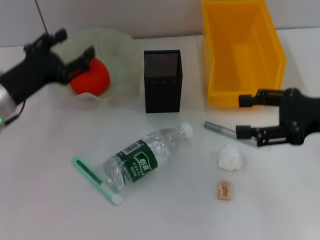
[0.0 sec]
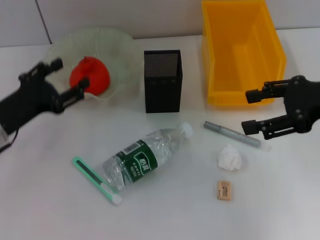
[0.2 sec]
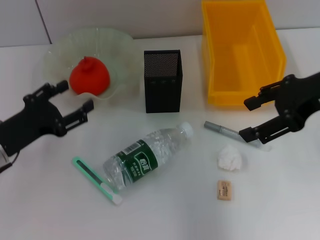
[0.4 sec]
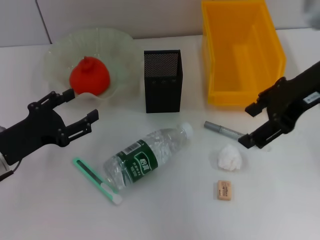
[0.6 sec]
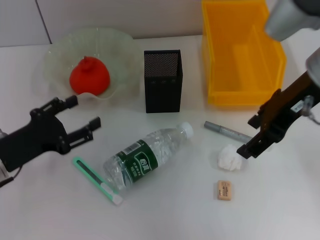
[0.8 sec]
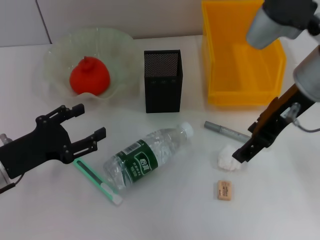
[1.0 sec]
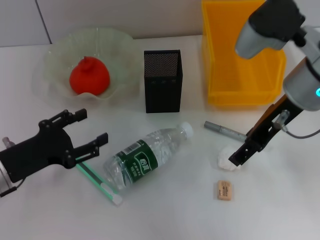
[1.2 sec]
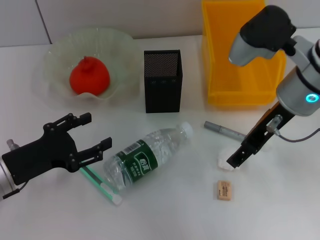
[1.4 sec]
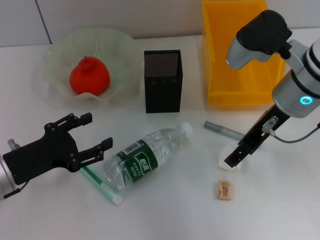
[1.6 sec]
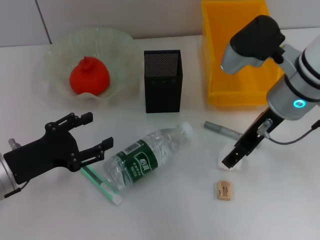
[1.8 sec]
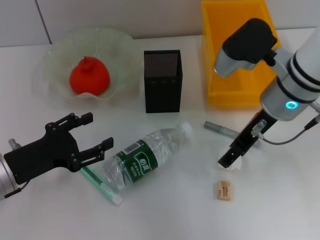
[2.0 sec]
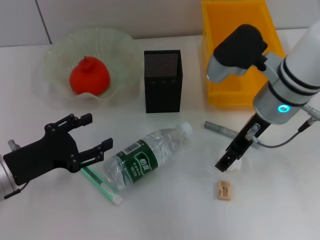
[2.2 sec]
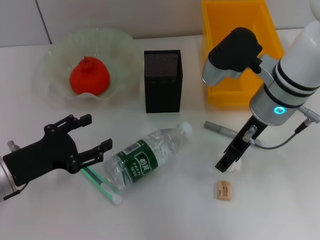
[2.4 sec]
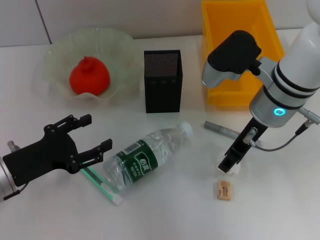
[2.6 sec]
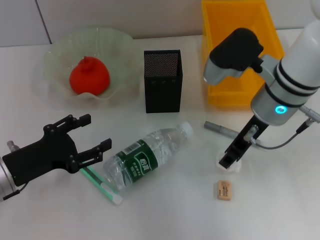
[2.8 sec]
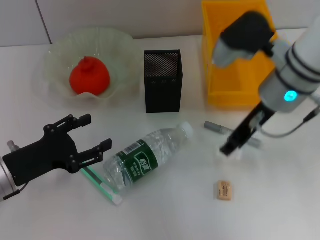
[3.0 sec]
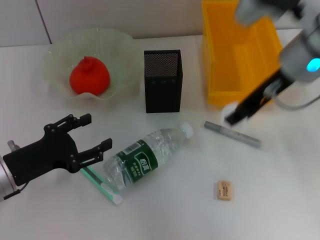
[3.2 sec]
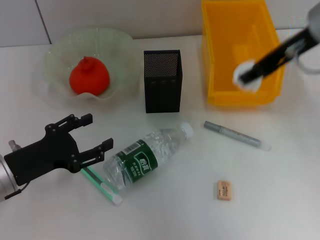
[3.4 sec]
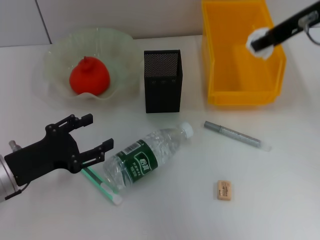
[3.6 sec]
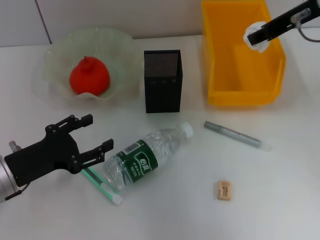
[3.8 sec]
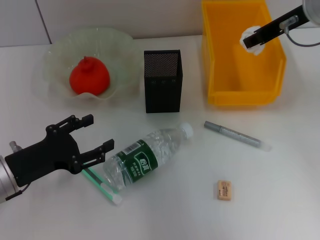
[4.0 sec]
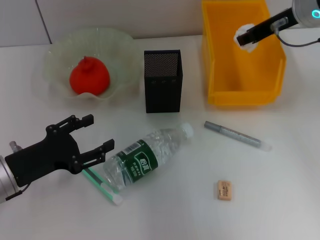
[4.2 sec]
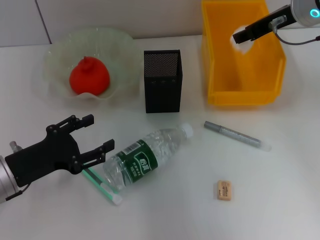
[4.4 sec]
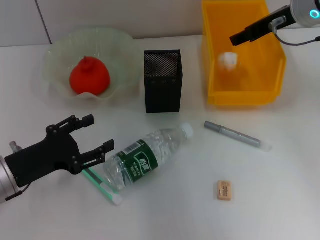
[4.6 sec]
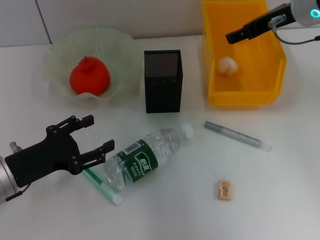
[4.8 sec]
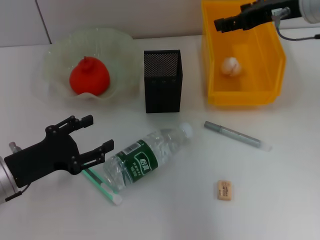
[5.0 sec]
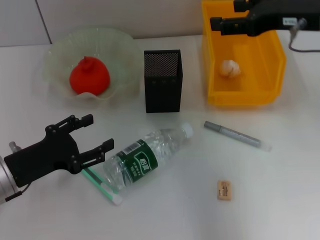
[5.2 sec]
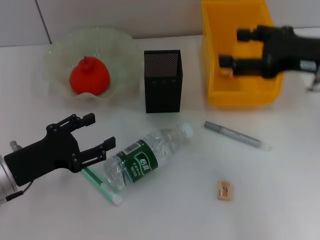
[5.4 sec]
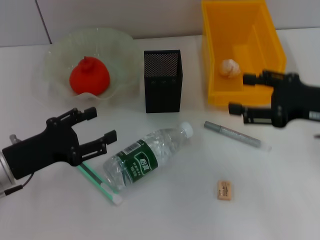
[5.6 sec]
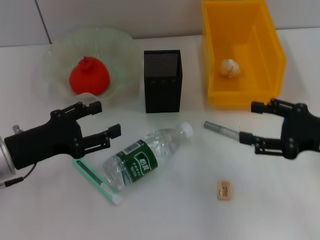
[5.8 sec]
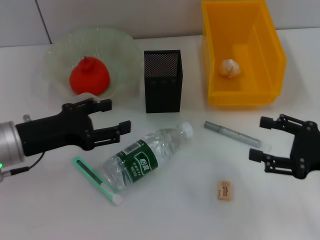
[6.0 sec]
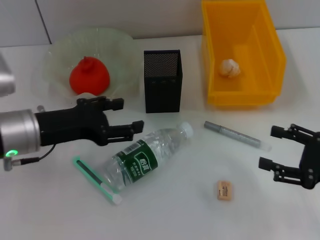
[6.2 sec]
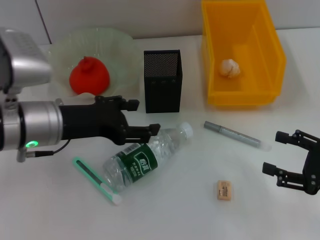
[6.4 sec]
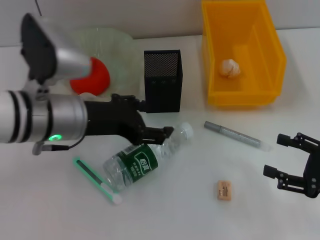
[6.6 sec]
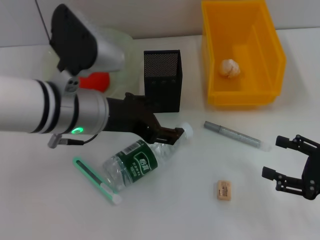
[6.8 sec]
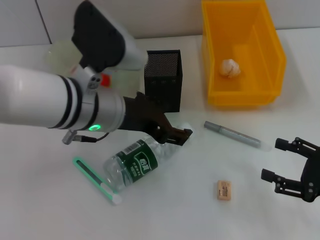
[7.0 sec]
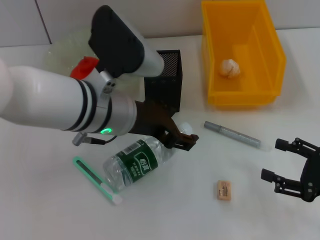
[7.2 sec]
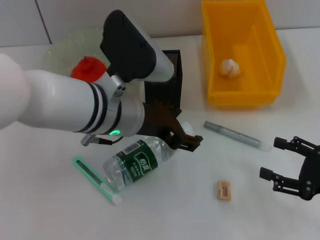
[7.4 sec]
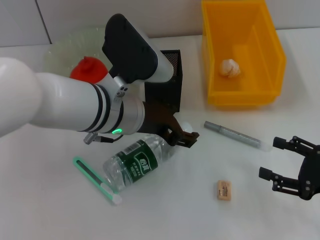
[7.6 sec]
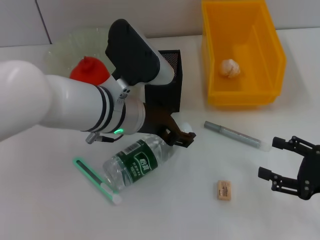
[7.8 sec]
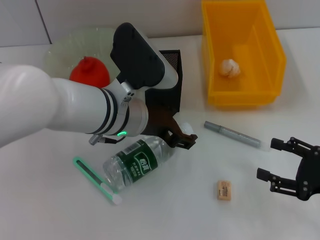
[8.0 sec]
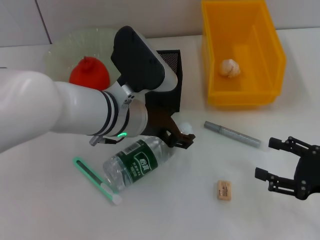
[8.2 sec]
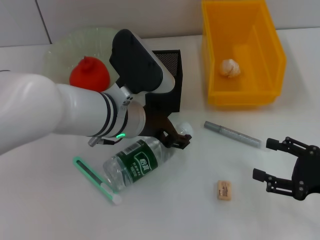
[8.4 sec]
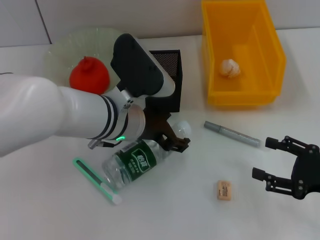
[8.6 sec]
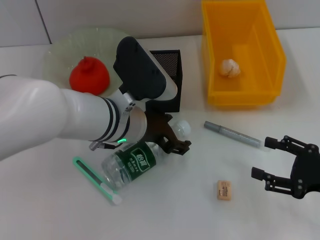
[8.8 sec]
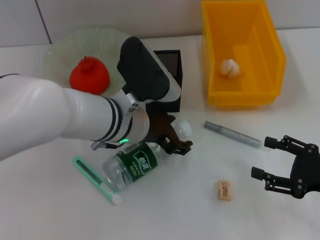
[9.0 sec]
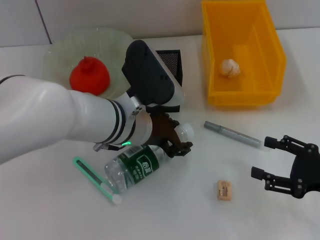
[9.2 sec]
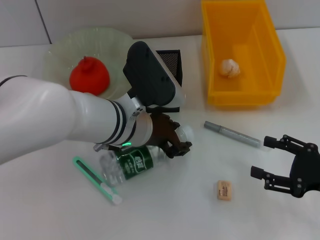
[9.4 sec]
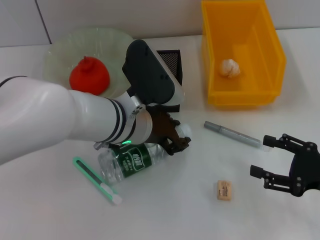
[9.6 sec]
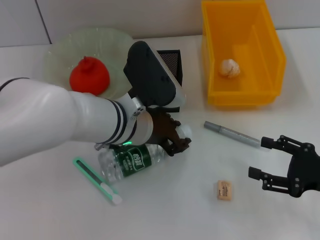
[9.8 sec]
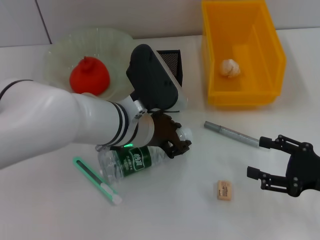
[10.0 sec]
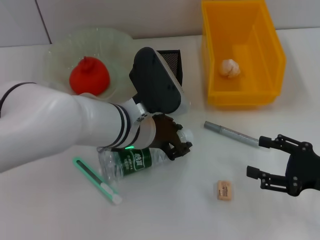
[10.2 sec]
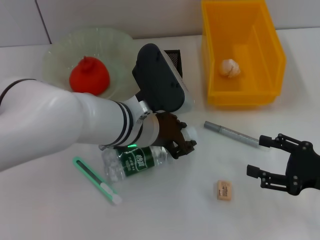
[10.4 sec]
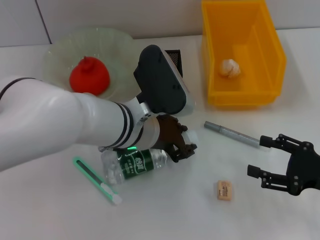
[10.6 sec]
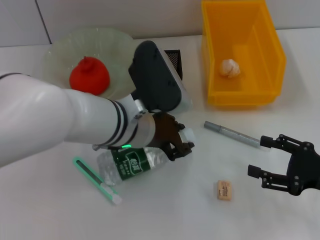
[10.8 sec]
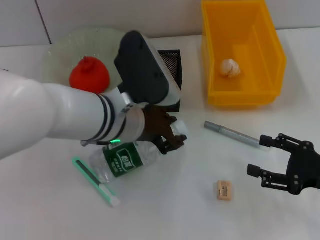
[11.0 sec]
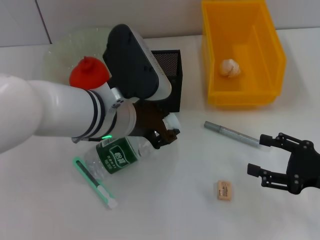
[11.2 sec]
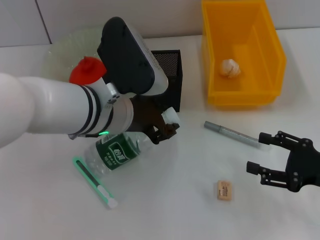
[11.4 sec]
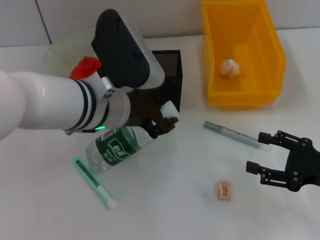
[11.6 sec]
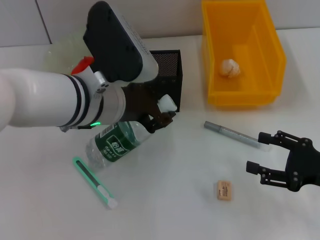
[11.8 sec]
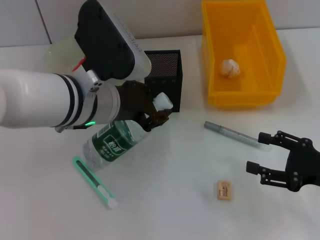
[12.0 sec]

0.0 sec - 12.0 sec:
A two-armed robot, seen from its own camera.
Step, 0.0 sec - 2.6 sec: Grab the paper ball with the right hand.
Step, 2.8 sec - 5.0 sec: Place the paper ball into the trash can with the right hand.
Step, 5.2 sec - 10.4 sec: Grab the water bottle with the left hand.
0.0 sec - 1.6 sec: The left gripper goes about 10 cm backward. Meanwhile the right gripper heads to the left and forward, covering some 15 cm.
1.6 sec - 3.0 sec: The right gripper closes its fingers.
3.0 sec - 4.4 sec: The right gripper is displaced forward and to the right by about 10 cm.
4.4 sec - 6.0 sec: The right gripper is displaced backward, downward and to the right by roughly 25 cm, and opens up. The left gripper moves upward, roughly 5 cm.
6.0 sec - 7.6 sec: The right gripper shifts by some 5 cm, while the left gripper moves to the right, about 15 cm.
7.6 sec - 9.0 sec: There are only small adjustments of the grippers.
9.0 sec - 10.4 sec: The left gripper closes.
10.4 sec - 12.0 sec: The left gripper goes roughly 5 cm upward.

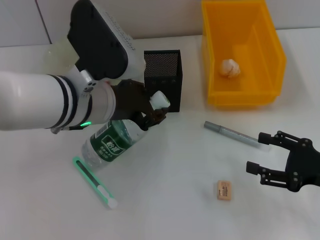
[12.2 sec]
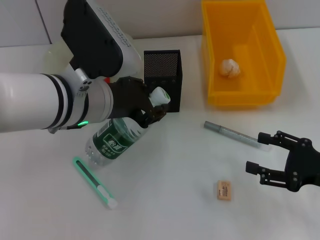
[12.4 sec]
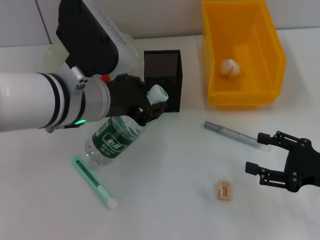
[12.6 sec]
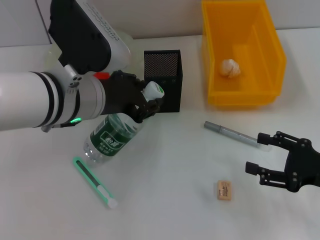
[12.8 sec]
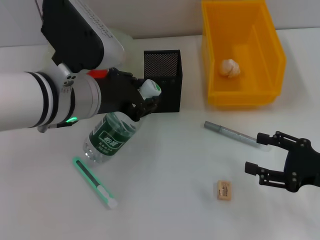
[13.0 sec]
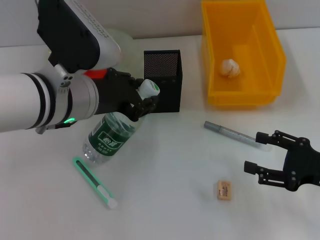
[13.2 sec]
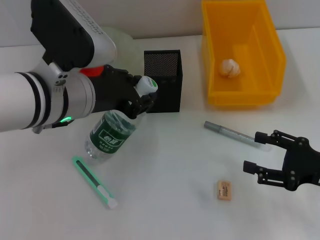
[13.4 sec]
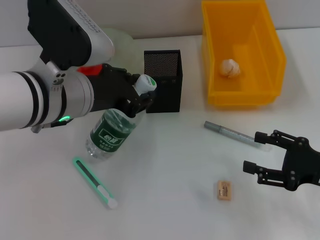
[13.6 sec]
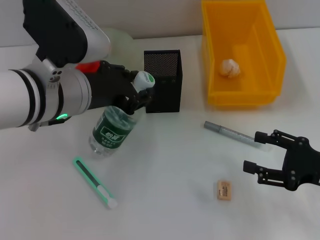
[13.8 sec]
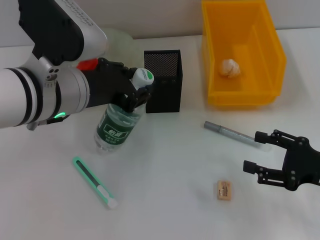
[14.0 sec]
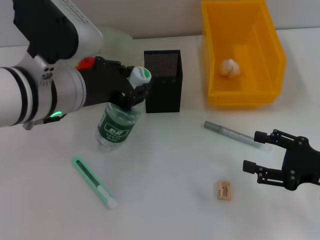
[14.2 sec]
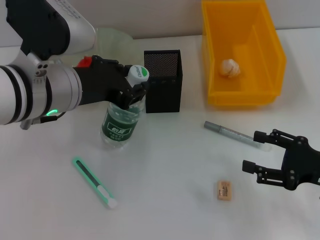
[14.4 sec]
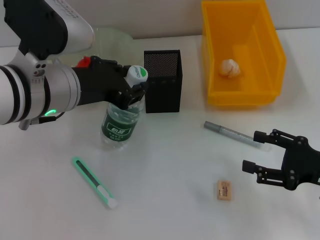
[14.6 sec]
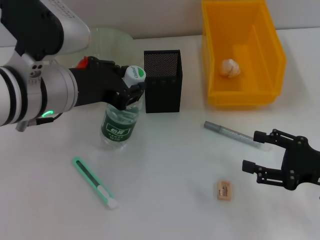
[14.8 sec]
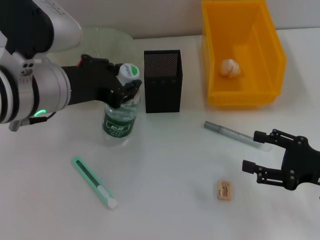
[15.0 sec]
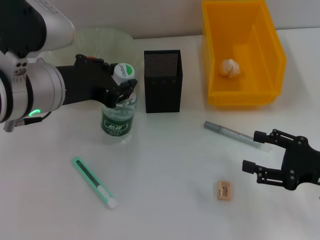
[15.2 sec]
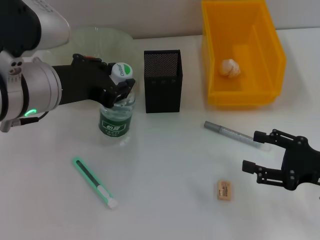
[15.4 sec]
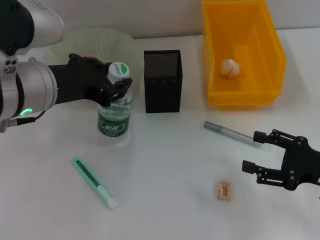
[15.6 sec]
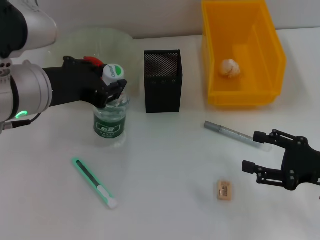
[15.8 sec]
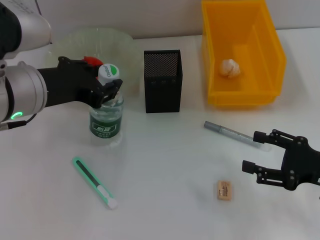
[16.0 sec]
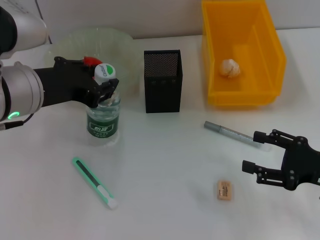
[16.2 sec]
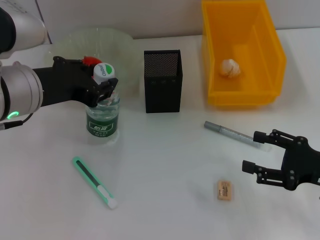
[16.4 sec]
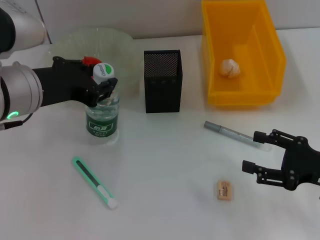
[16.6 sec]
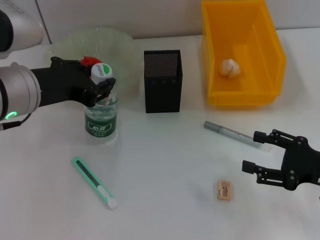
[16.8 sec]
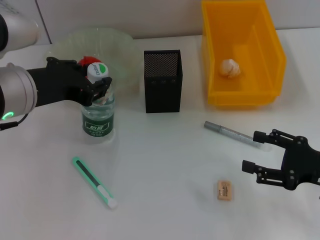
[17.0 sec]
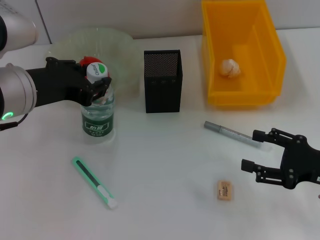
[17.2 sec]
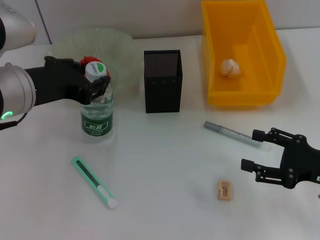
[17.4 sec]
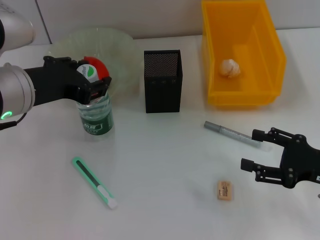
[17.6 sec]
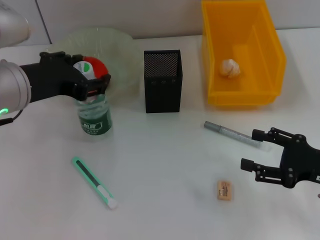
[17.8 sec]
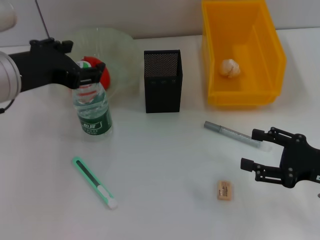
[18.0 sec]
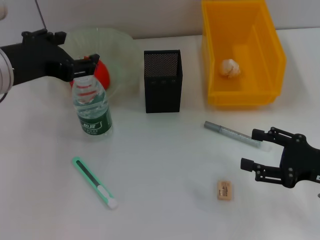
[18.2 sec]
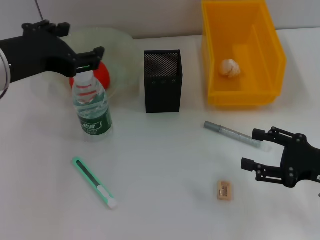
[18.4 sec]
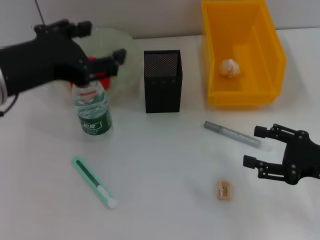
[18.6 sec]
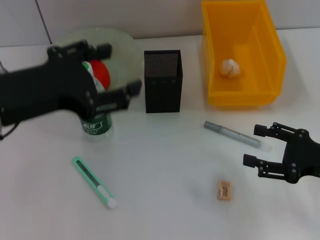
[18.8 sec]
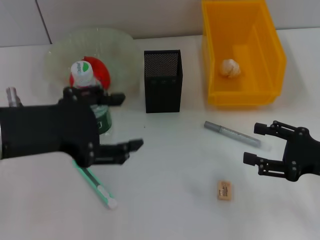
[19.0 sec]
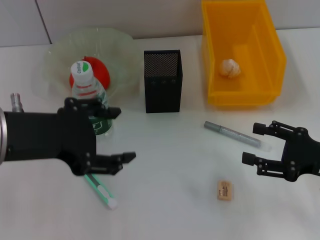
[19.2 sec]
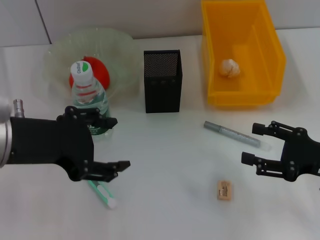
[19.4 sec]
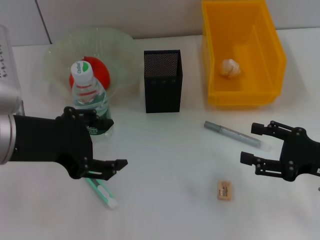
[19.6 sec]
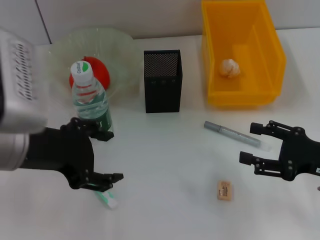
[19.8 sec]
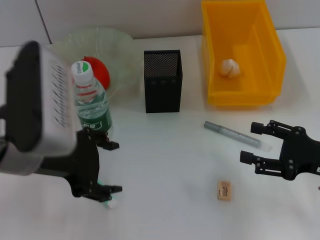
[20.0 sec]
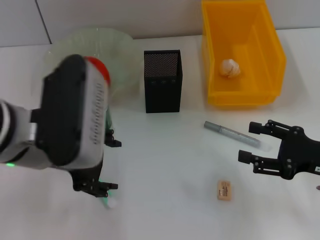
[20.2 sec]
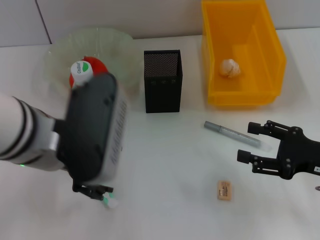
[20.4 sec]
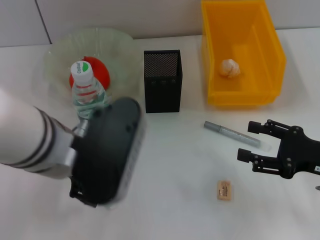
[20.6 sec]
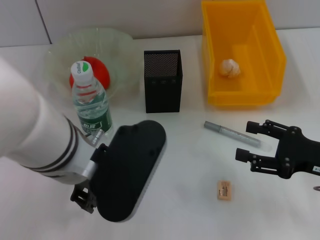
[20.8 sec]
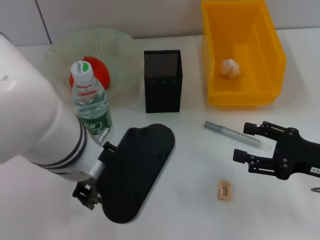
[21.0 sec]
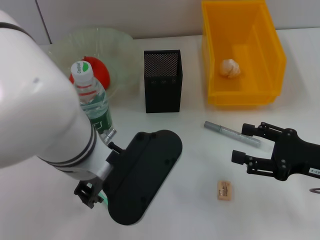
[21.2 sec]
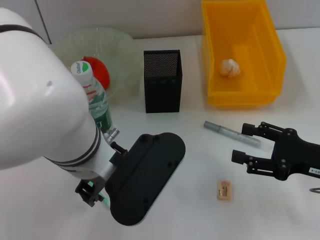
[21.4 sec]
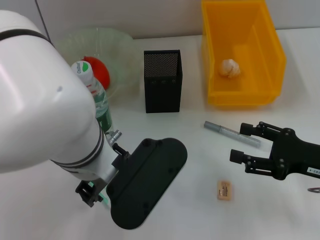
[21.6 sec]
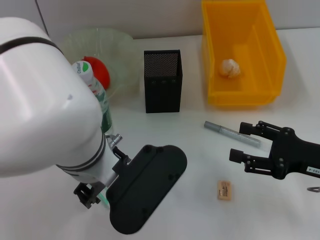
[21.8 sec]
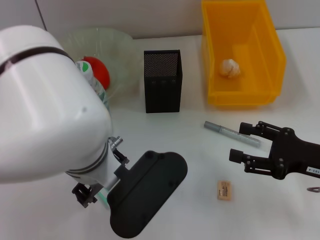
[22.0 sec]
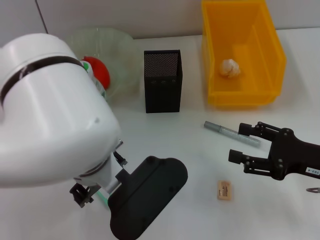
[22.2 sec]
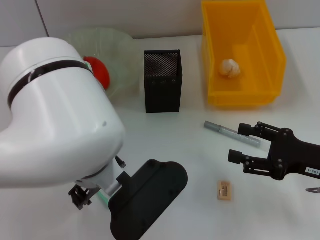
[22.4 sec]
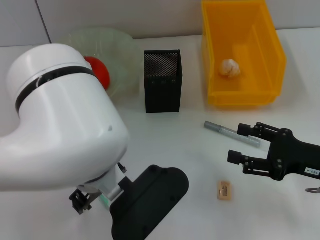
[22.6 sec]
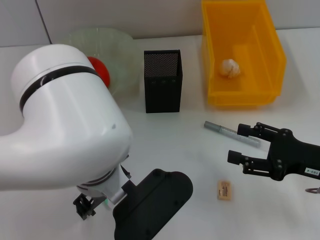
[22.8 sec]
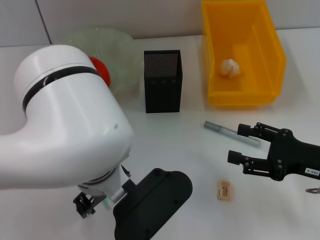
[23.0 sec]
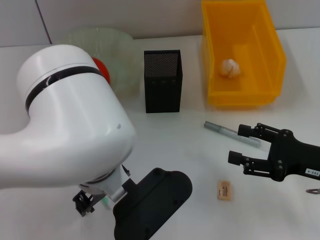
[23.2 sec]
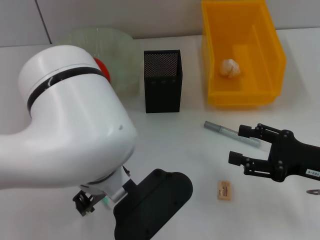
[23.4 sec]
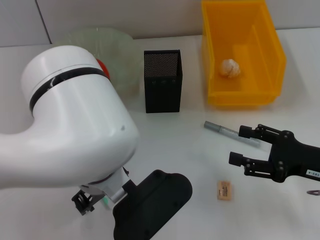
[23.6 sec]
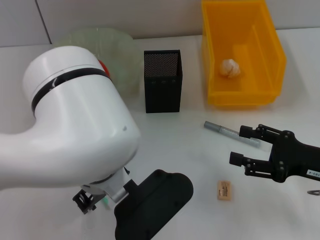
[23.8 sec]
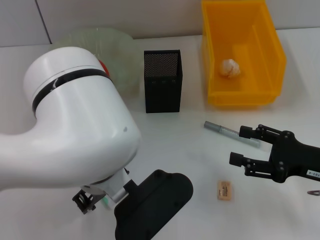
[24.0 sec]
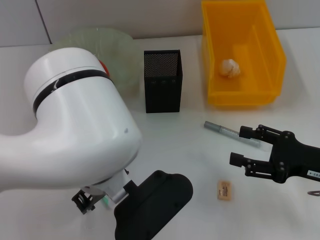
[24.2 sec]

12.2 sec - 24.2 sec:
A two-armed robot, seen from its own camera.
Step, 12.2 sec - 17.6 sec: Place the water bottle on the table with the left hand.
12.2 sec - 13.8 sec: The grippers move only a little.
13.8 sec - 16.6 sec: The grippers move only a little.
16.6 sec - 18.2 sec: The left gripper opens its fingers.
19.8 sec - 21.2 sec: The left gripper is displaced to the right by roughly 10 cm.
22.6 sec - 24.2 sec: Neither gripper changes place.
